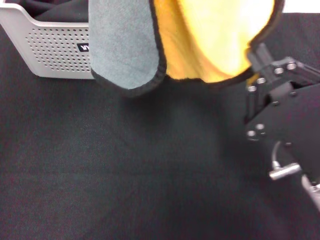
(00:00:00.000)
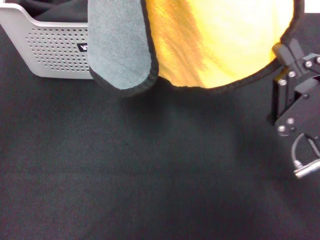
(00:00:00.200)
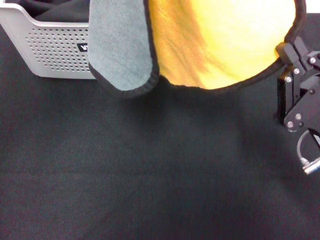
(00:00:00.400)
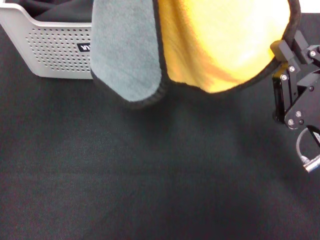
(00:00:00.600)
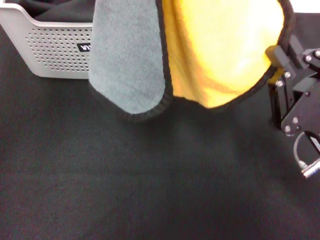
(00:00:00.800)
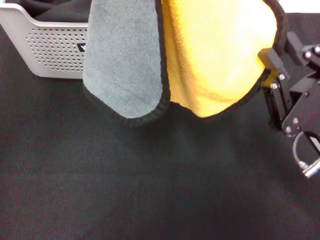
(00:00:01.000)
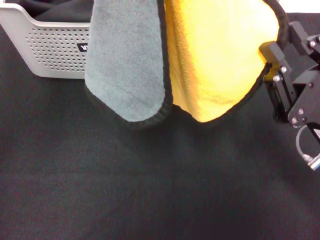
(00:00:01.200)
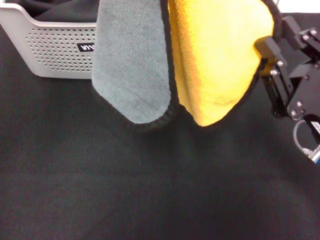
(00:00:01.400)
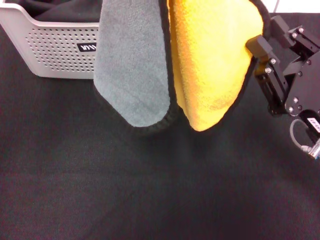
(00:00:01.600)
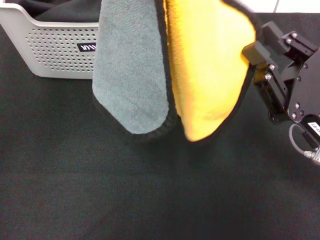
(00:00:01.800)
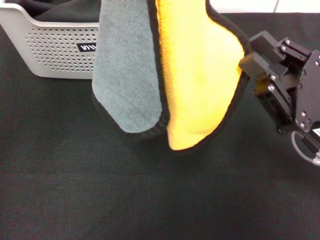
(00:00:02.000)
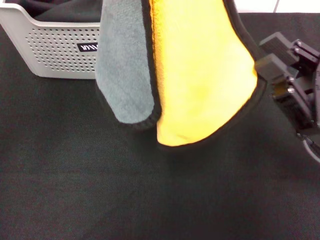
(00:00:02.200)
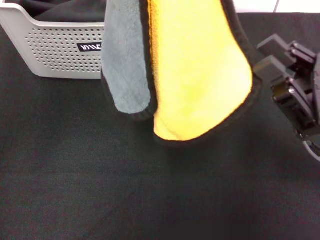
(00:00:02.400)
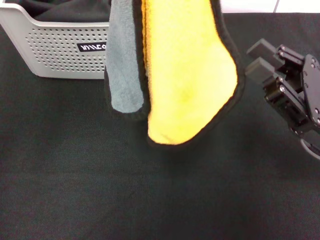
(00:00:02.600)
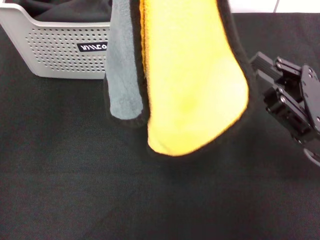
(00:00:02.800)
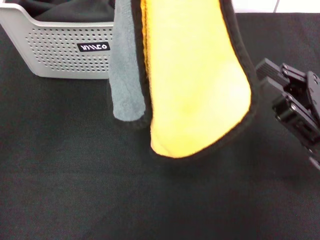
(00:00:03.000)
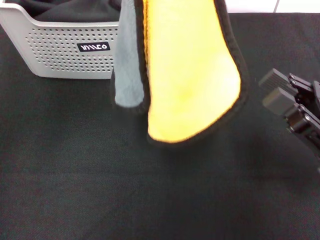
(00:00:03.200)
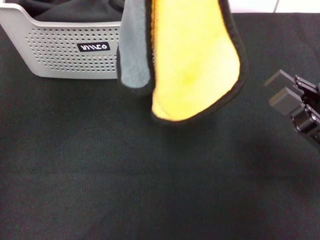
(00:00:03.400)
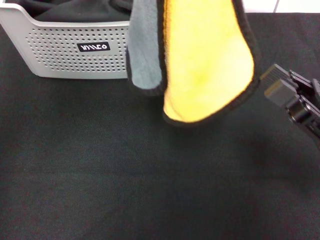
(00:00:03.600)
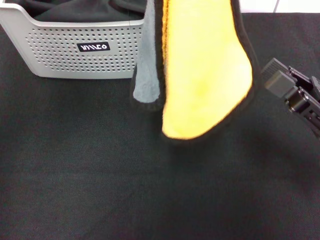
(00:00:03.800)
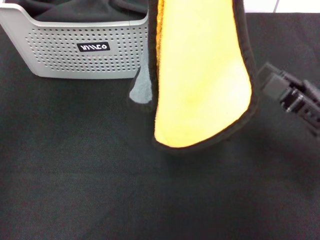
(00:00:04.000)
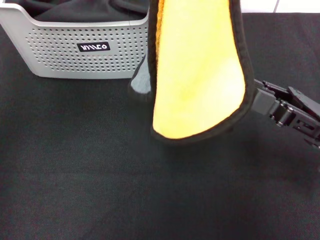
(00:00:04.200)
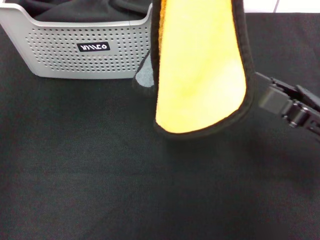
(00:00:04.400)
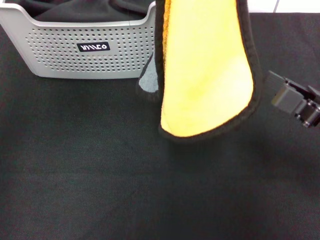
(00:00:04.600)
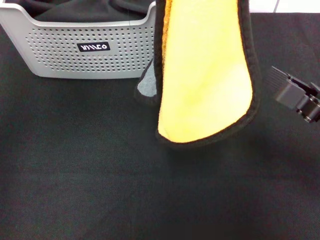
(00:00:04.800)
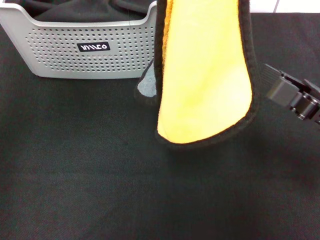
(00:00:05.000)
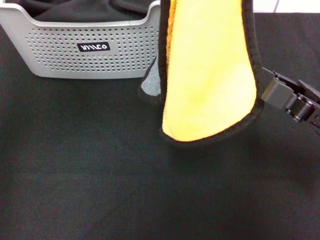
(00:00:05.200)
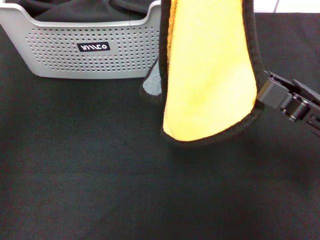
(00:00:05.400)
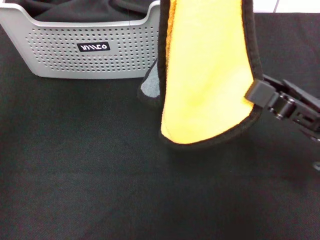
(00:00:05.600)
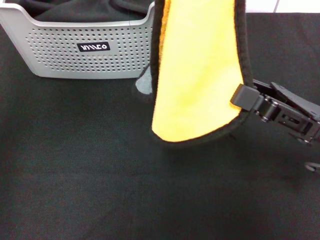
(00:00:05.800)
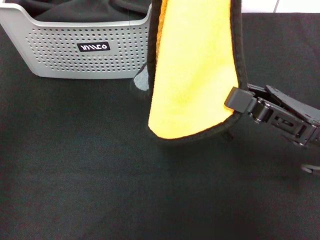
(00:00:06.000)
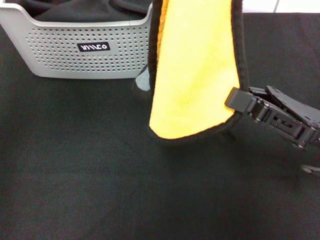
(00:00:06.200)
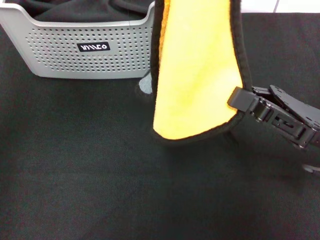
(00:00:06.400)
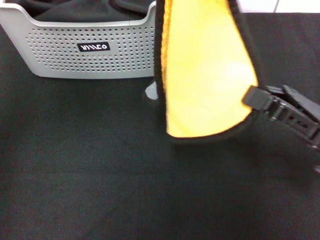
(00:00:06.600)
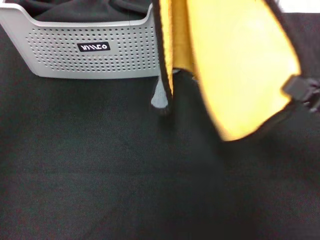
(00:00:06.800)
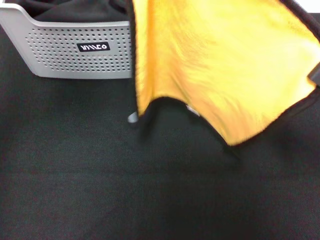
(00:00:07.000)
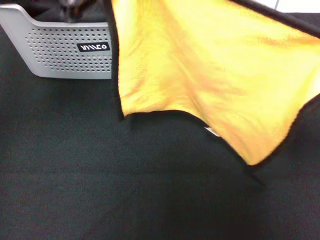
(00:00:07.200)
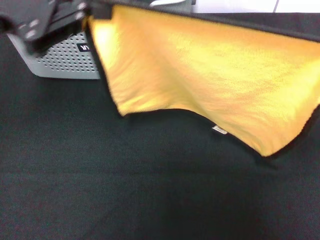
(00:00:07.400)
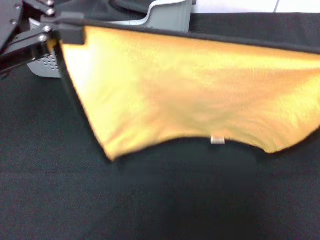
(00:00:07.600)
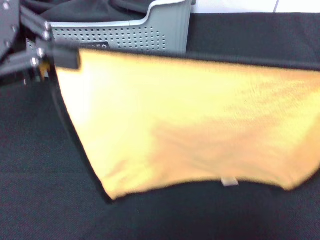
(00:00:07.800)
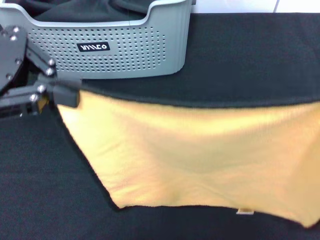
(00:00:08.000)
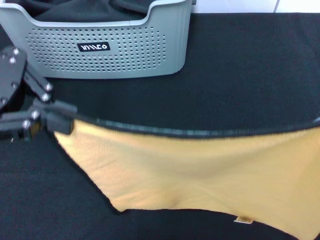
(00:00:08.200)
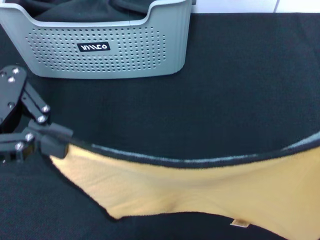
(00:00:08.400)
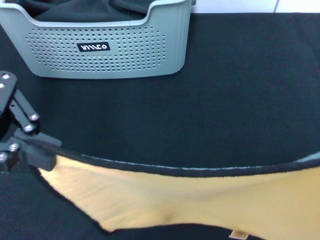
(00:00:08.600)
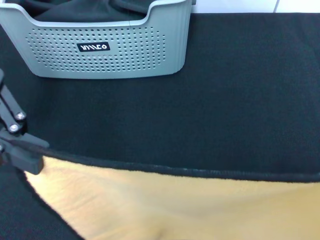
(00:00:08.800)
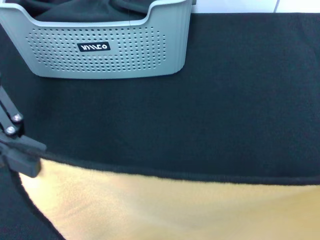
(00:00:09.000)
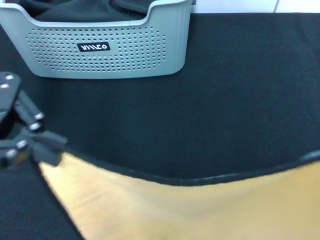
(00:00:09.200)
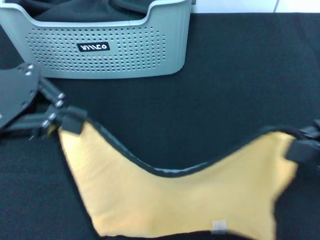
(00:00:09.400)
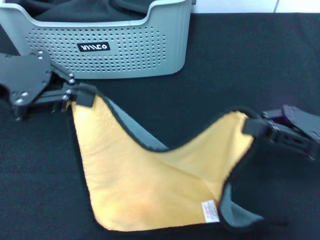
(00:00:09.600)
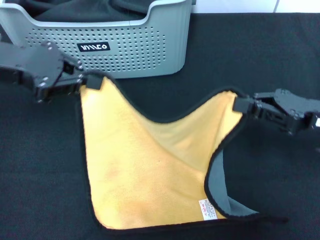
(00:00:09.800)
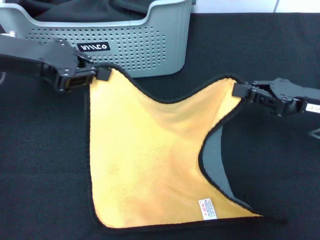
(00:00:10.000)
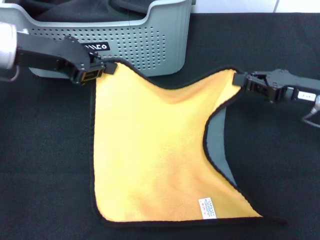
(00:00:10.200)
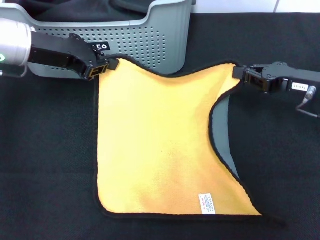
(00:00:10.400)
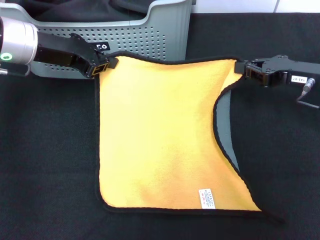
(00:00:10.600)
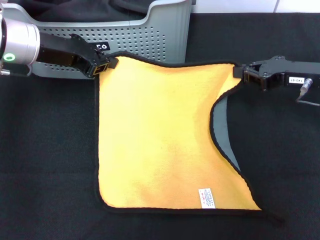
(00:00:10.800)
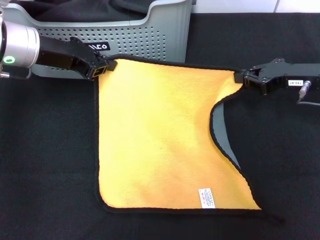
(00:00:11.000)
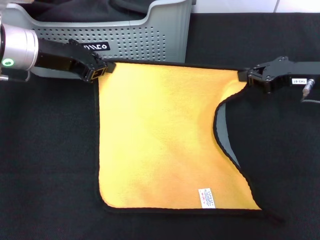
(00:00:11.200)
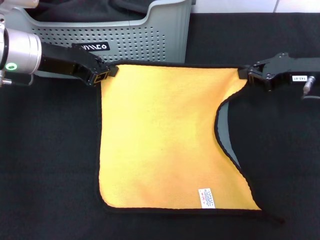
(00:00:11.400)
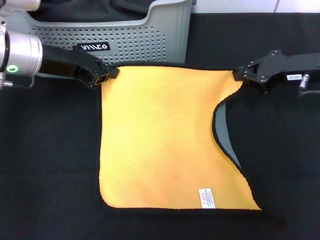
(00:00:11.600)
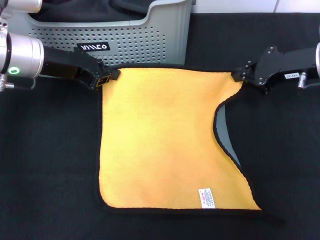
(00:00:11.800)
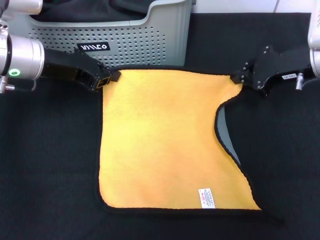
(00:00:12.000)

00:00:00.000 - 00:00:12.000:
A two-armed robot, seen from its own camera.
Task of the whole recording: pick up the towel from the storage box and lay it flat on the black tablecloth.
00:00:00.000 - 00:00:01.600: The right gripper goes roughly 5 cm forward.
00:00:04.400 - 00:00:06.000: The grippers make only small movements.
00:00:06.000 - 00:00:07.600: The left gripper moves to the left and downward, approximately 10 cm. Meanwhile the right gripper is displaced to the right by some 10 cm.
00:00:07.600 - 00:00:09.000: The right gripper ends up approximately 5 cm from where it was.
00:00:09.000 - 00:00:10.400: Both grippers move forward and downward, about 15 cm.
00:00:10.400 - 00:00:12.000: The right gripper ends up about 5 cm from where it was.

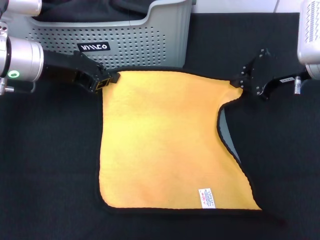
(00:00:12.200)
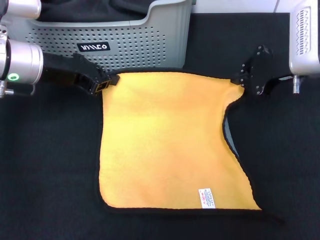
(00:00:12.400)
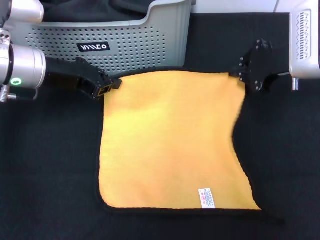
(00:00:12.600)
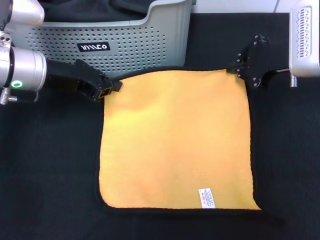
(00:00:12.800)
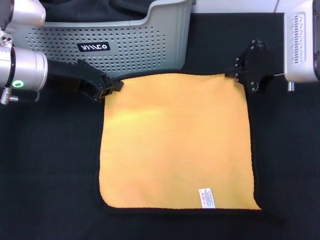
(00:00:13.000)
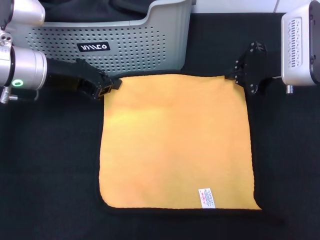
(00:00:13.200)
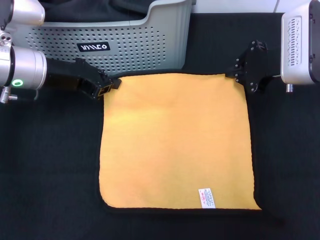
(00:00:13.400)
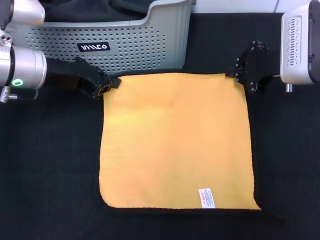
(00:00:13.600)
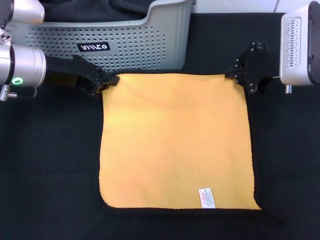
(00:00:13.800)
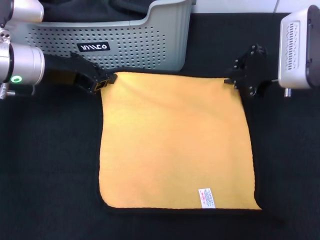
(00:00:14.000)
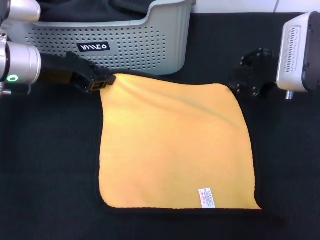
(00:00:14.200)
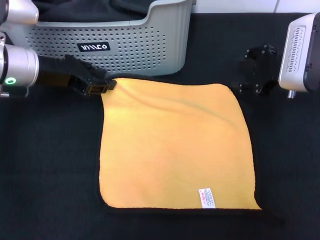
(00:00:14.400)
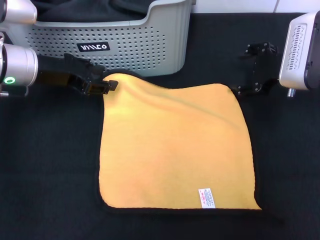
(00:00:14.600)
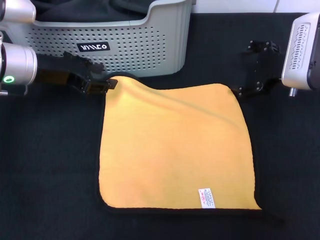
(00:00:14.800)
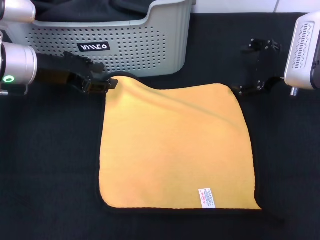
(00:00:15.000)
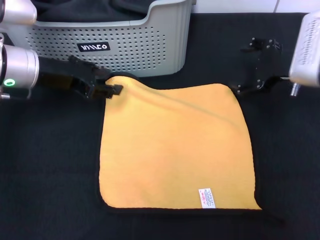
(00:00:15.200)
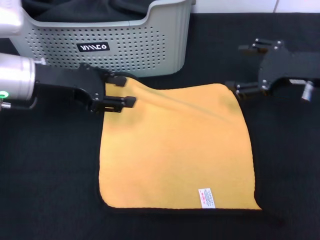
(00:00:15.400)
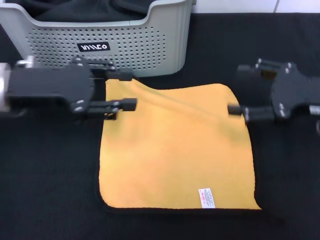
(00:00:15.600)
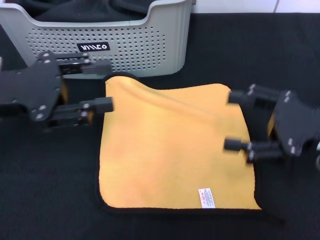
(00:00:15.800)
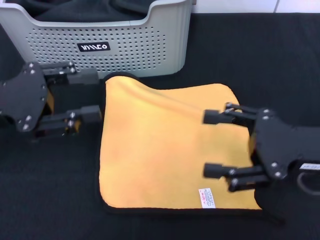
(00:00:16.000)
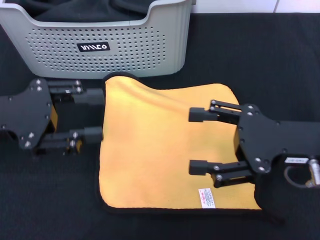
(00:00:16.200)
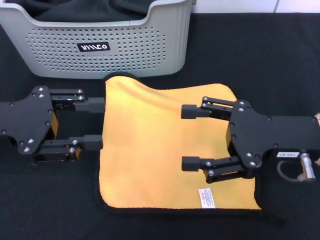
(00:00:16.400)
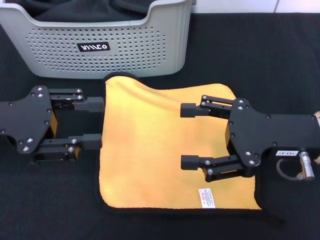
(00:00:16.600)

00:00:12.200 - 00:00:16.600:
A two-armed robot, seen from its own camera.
Task of the whole recording: pick up the towel from the storage box and lay it flat on the black tablecloth.
Step, 00:00:12.200 - 00:00:14.800: Spread the towel flat with the right gripper.
00:00:12.200 - 00:00:13.600: The grippers stay close to where they were, moving slightly.
00:00:13.600 - 00:00:15.200: The right gripper opens up. The left gripper opens.
00:00:15.200 - 00:00:16.600: The two grippers go roughly 10 cm backward.
